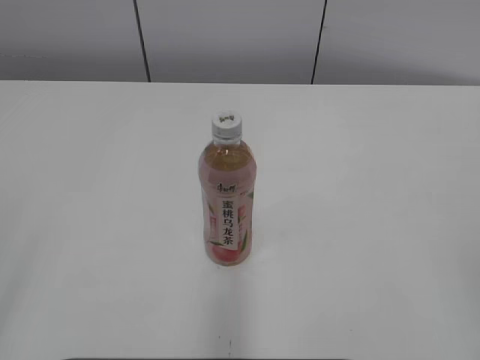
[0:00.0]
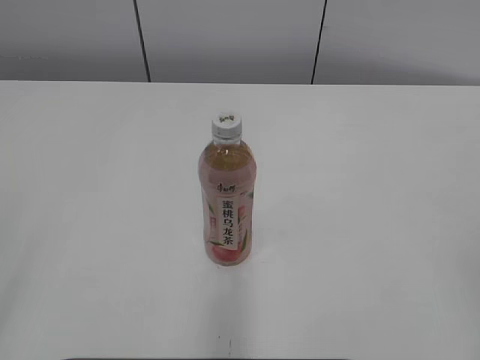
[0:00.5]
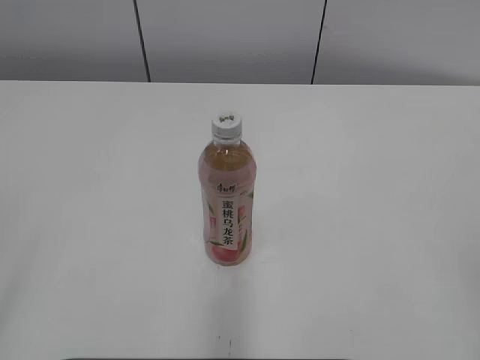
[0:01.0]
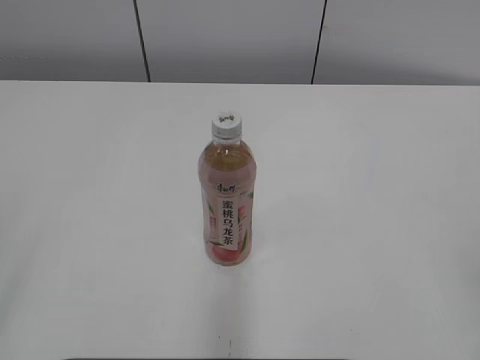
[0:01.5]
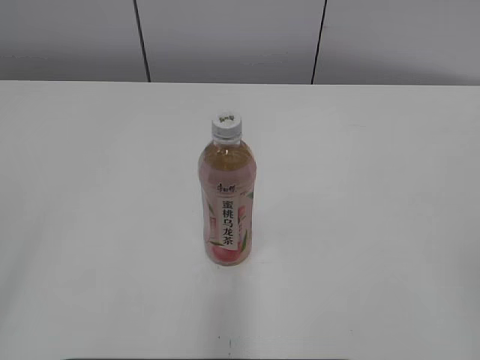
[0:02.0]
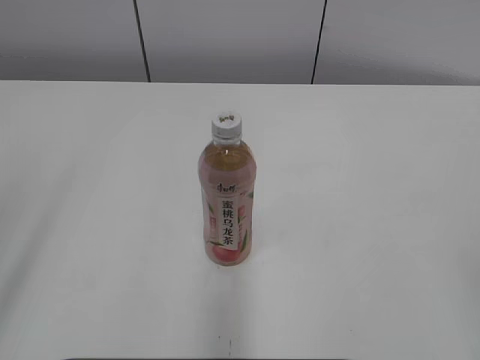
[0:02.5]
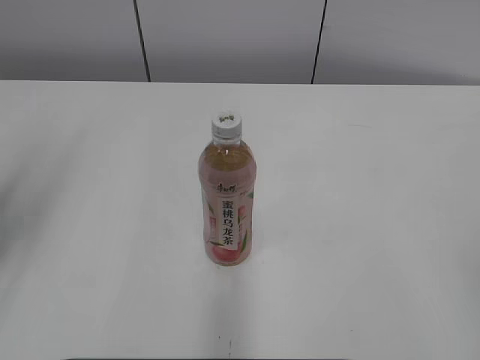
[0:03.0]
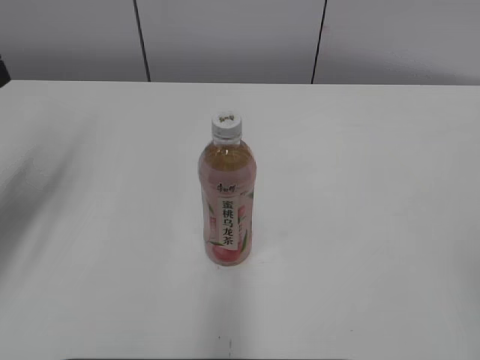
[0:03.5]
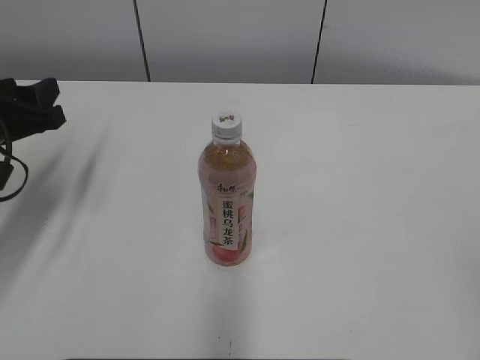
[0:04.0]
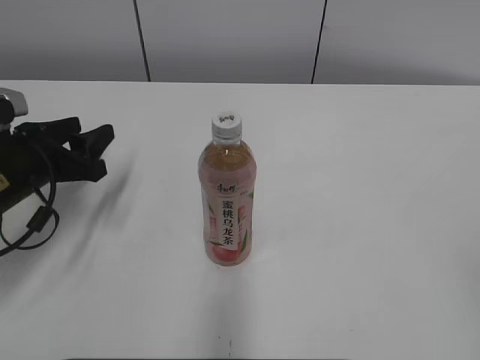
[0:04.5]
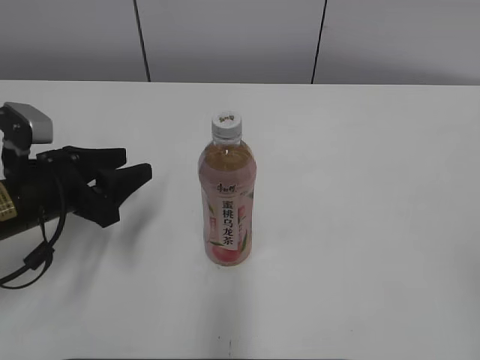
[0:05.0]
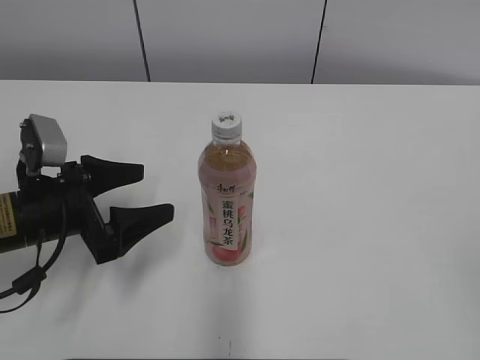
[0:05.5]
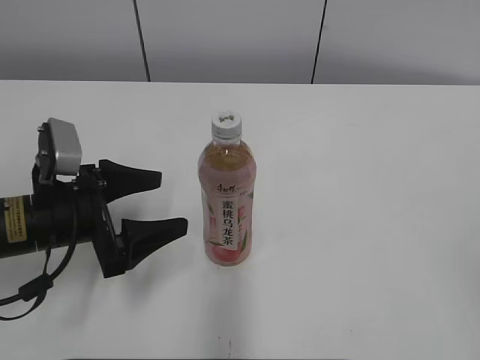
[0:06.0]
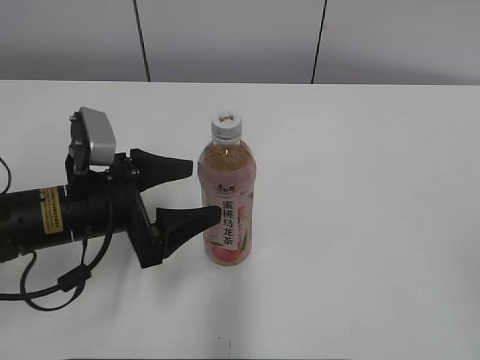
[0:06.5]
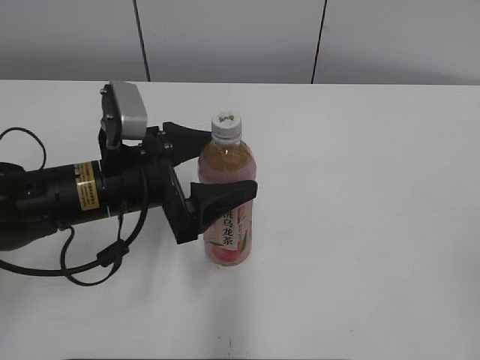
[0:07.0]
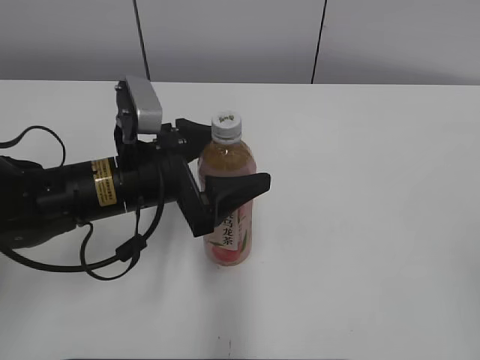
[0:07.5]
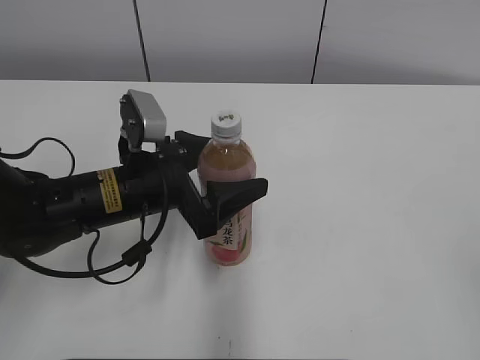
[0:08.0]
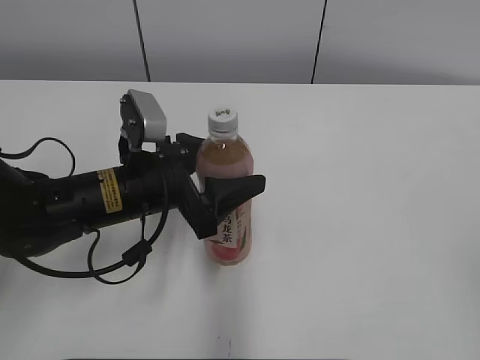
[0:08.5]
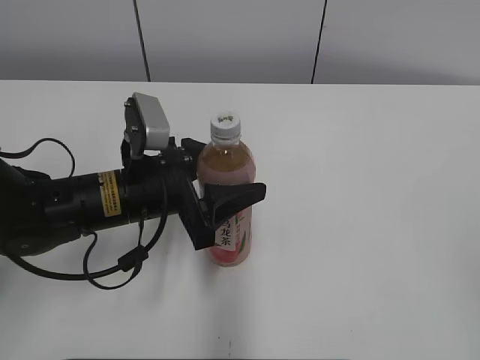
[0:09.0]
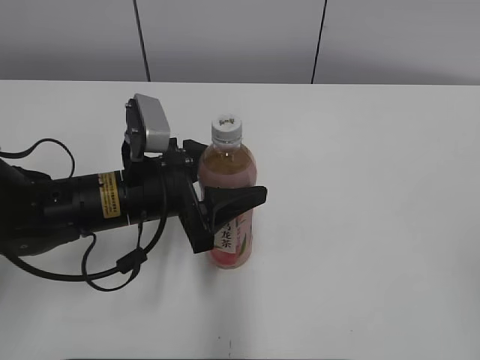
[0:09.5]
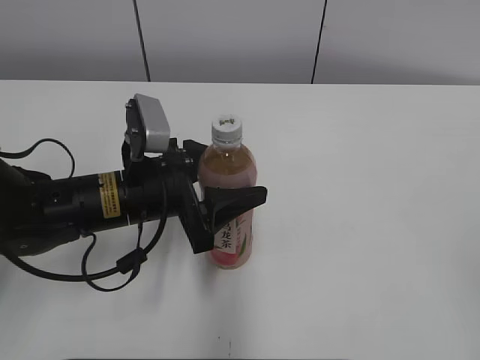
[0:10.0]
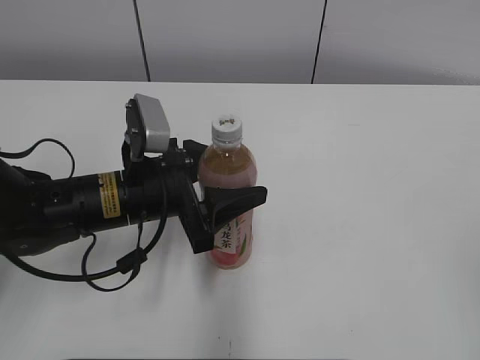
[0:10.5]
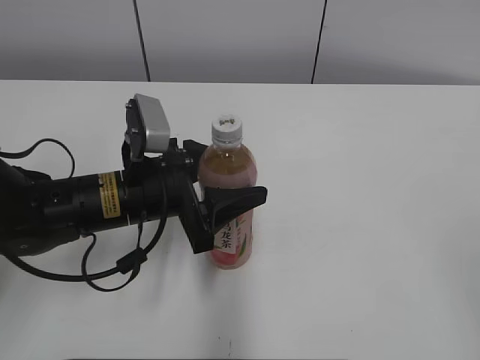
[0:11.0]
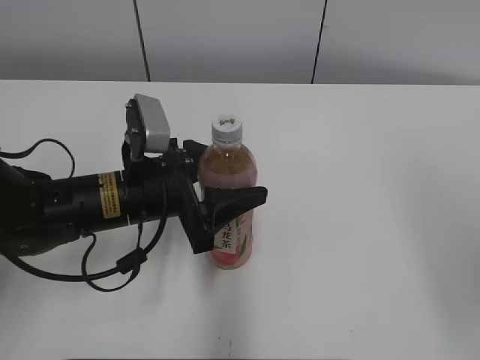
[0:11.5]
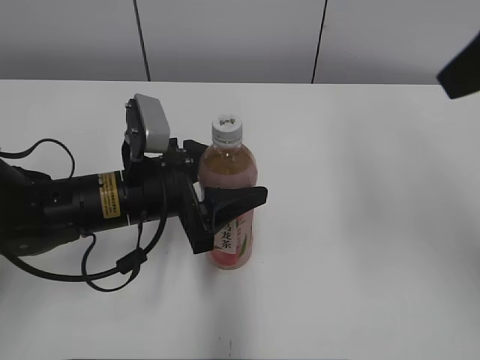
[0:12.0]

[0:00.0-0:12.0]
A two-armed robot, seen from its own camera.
Step, 0:00.0 to 0:08.5: Grab the Peach Oolong Tea with the left hand.
0:02.0 to 0:04.0: The left gripper goes some 30 cm forward and downward.
0:04.0 to 0:06.0: The left gripper shifts roughly 10 cm to the right and downward, and opens up.
0:06.0 to 0:08.0: The left gripper moves to the right, roughly 10 cm.
0:08.0 to 0:10.0: The left gripper closes its fingers.
0:10.0 to 0:12.0: The right gripper is displaced forward and upward by about 25 cm.

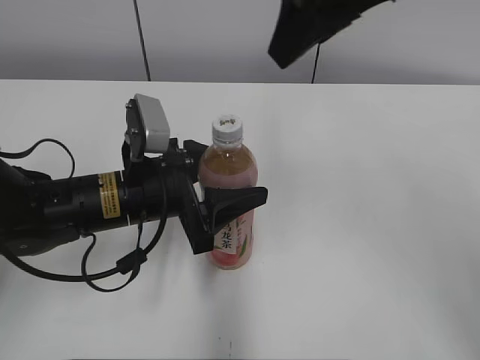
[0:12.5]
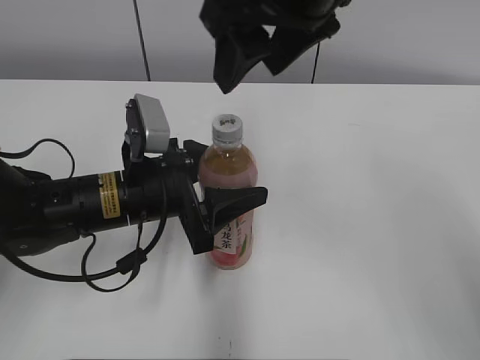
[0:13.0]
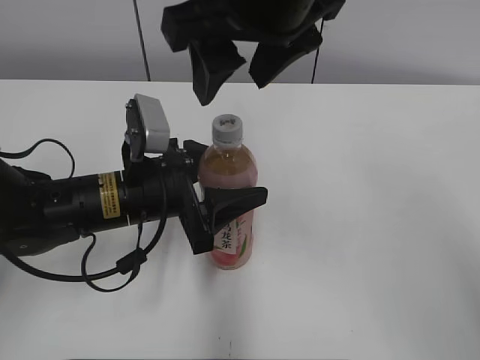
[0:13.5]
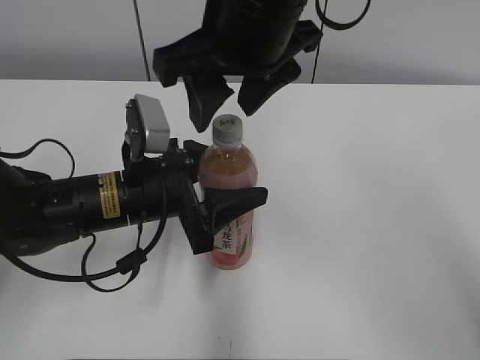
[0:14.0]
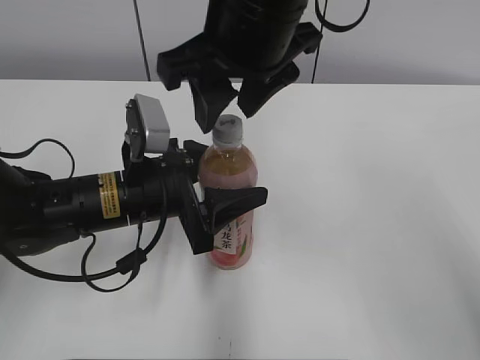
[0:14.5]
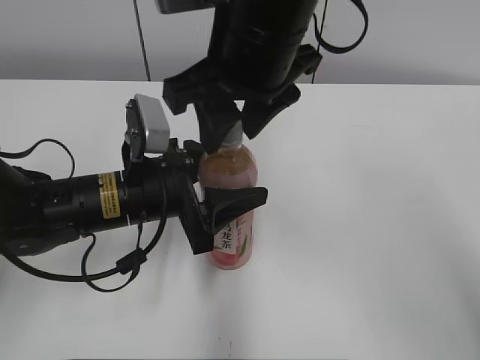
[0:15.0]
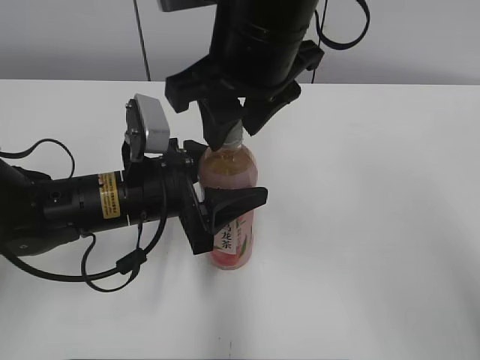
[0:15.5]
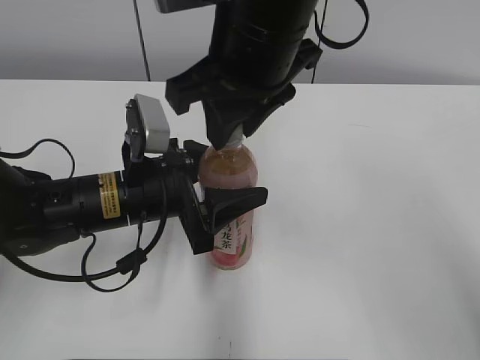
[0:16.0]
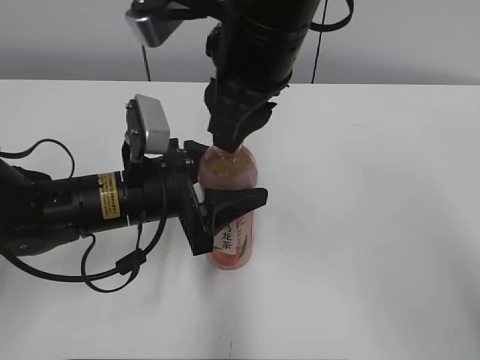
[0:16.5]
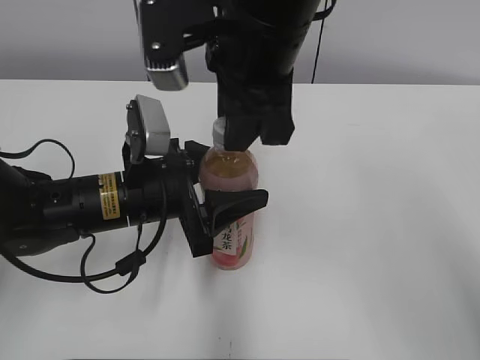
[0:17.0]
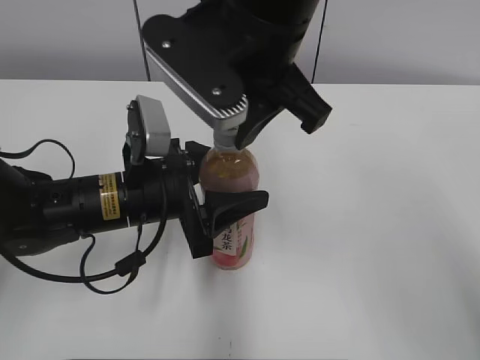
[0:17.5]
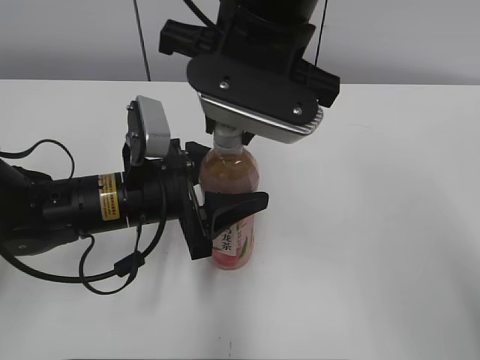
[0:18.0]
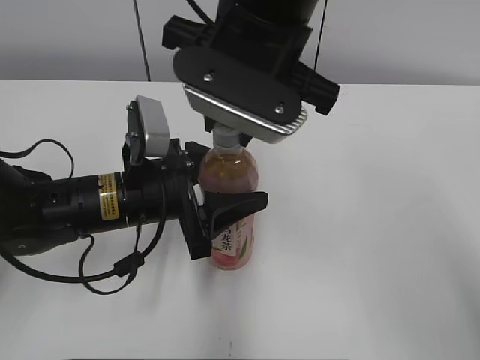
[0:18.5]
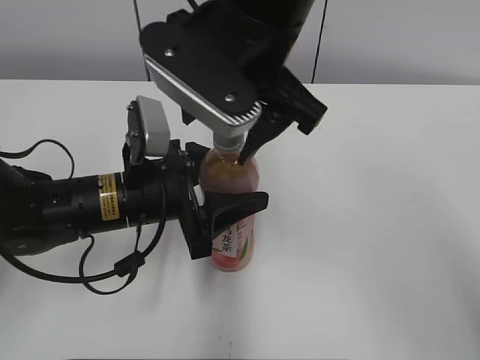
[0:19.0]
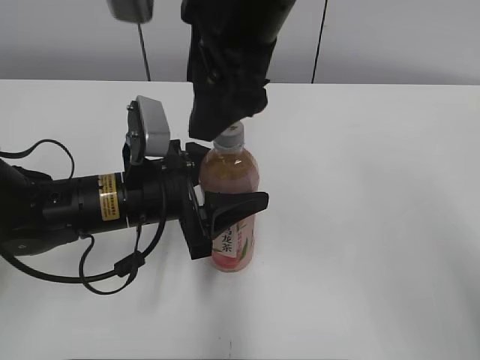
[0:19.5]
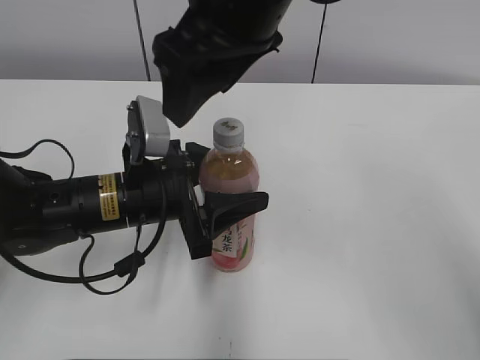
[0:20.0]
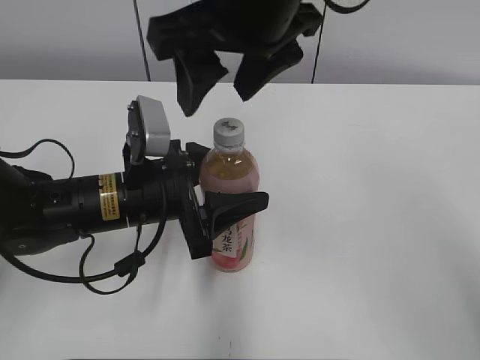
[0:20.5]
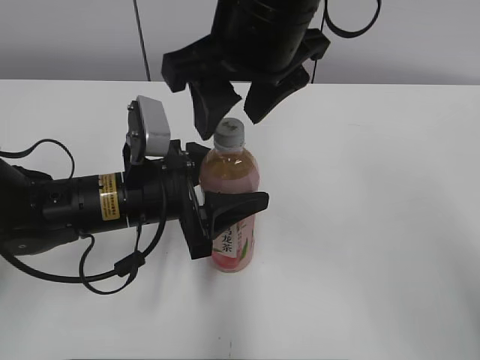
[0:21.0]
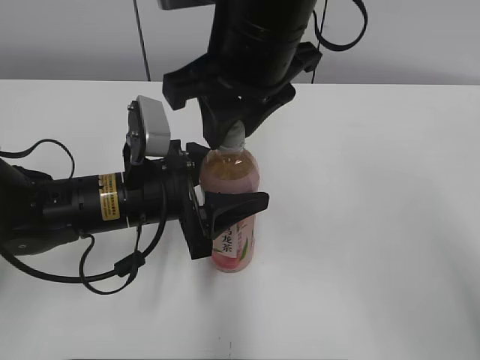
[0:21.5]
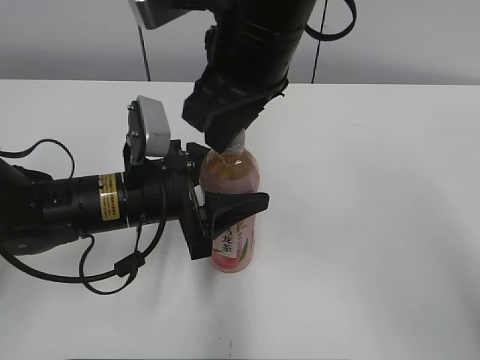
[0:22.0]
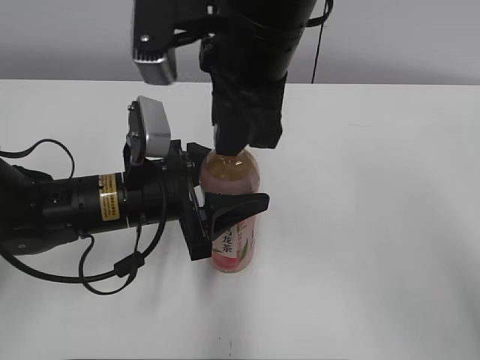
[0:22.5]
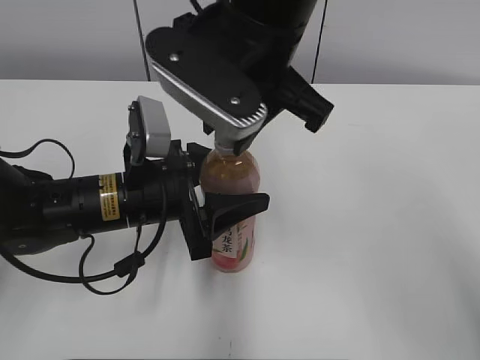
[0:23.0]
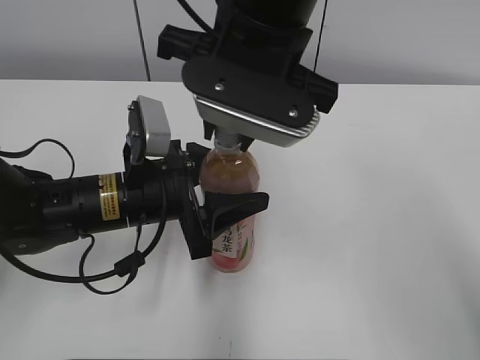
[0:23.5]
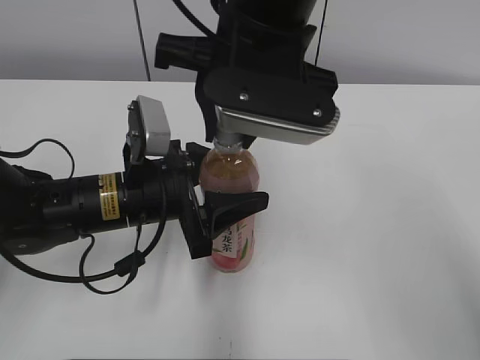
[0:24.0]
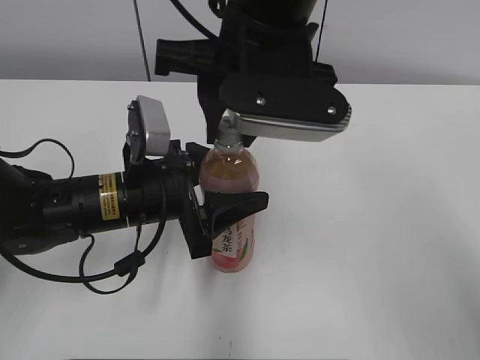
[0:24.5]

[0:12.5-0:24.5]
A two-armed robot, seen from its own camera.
0:12.5 to 0:14.5: The right gripper moves to the left and downward, some 10 cm.
0:14.5 to 0:16.5: The right gripper closes its fingers.
0:18.5 to 0:20.5: The right gripper opens its fingers.
0:20.5 to 0:22.5: The right gripper closes up.

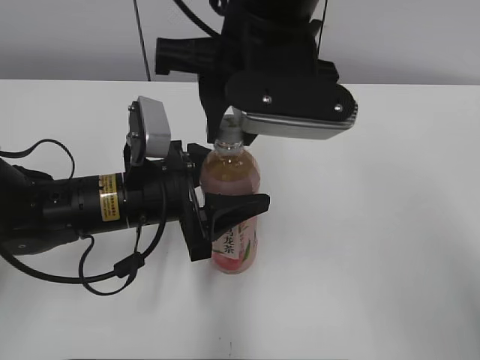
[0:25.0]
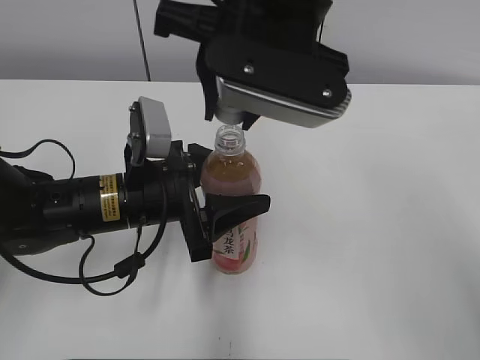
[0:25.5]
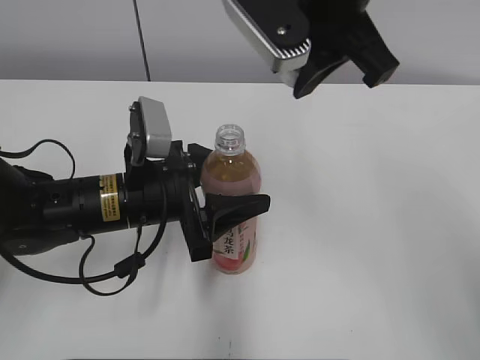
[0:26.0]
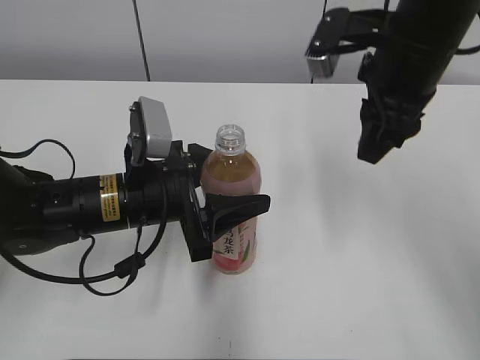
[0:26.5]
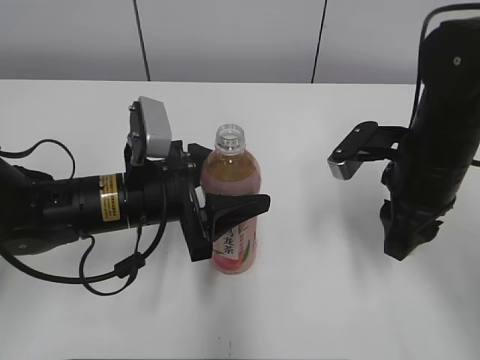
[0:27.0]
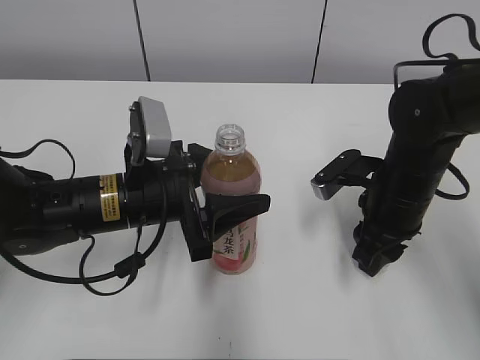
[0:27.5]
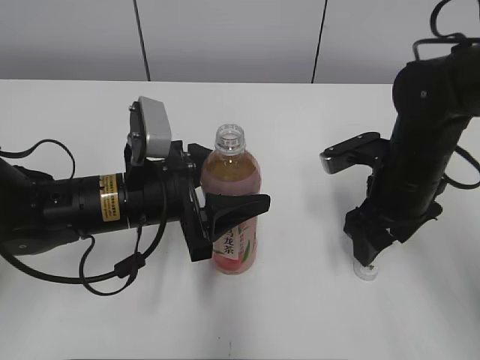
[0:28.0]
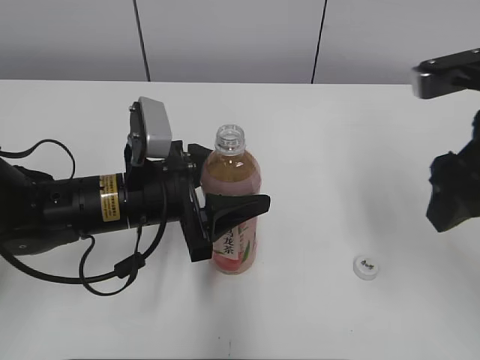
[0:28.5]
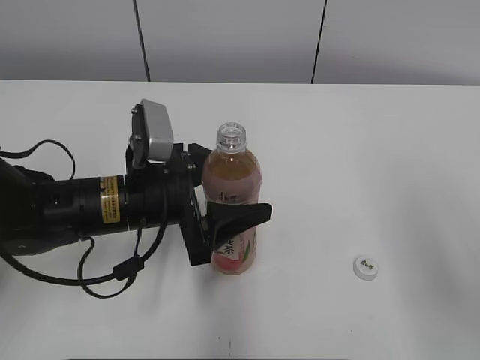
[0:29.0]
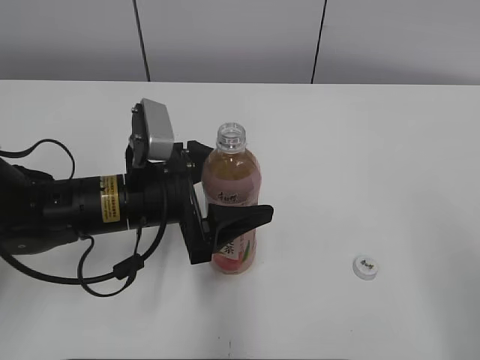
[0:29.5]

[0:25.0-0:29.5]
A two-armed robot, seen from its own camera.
Step, 0:25.5 to 0:28.0: Place the bottle cap on the right.
0:25.0 to 0:27.0: The right gripper heads to the right and downward, covering approximately 20 cm.
0:27.0 to 0:29.5: The right gripper is displaced backward, upward and to the right by approximately 25 cm, and opens its fingers, while the left gripper opens up.
